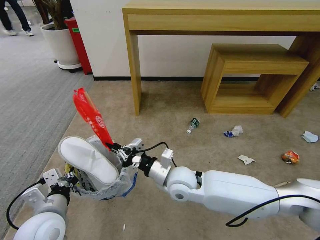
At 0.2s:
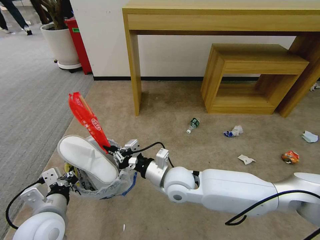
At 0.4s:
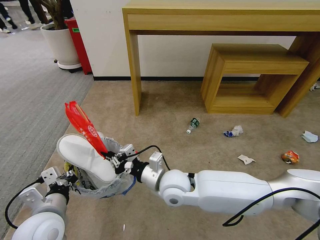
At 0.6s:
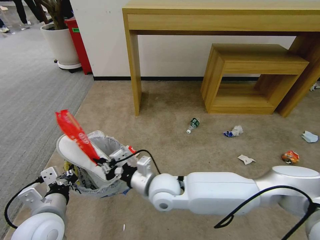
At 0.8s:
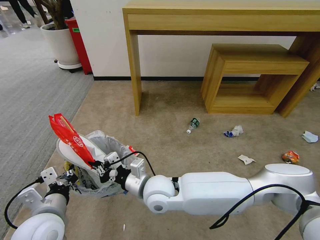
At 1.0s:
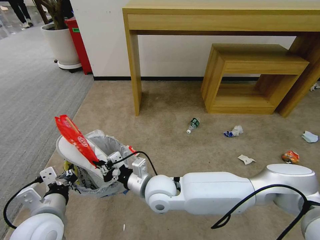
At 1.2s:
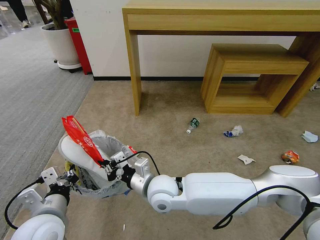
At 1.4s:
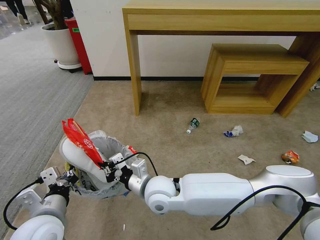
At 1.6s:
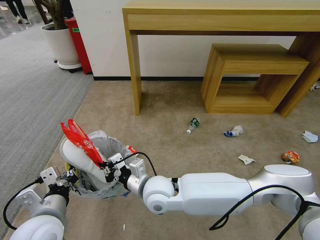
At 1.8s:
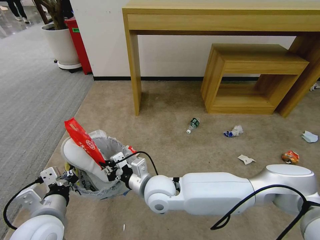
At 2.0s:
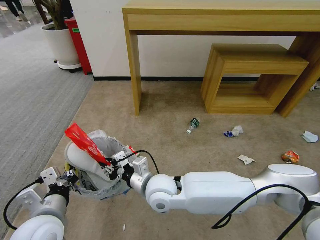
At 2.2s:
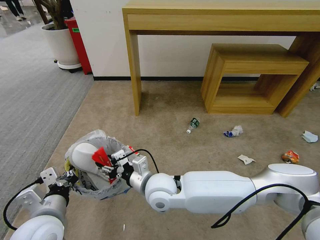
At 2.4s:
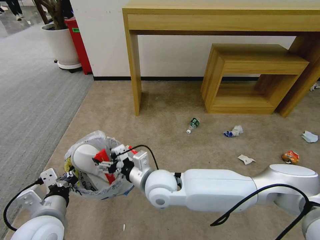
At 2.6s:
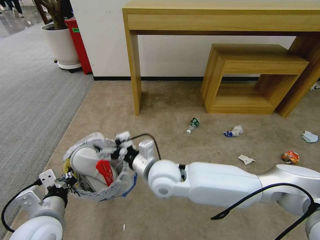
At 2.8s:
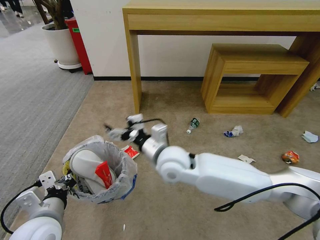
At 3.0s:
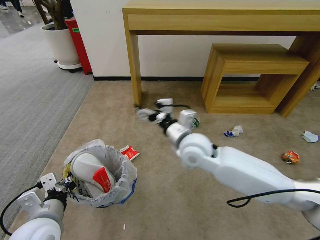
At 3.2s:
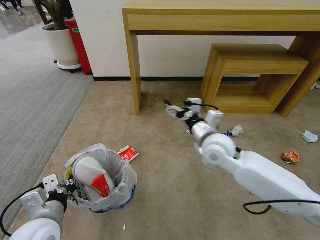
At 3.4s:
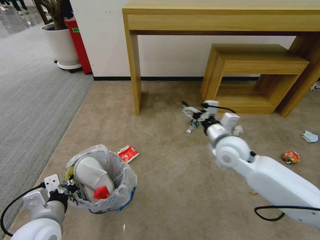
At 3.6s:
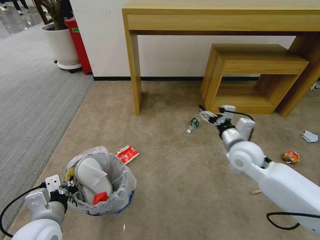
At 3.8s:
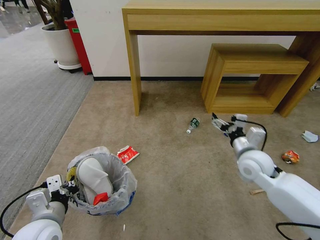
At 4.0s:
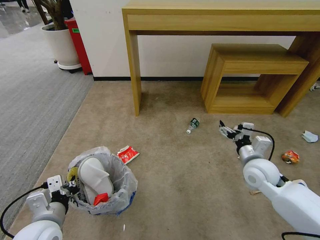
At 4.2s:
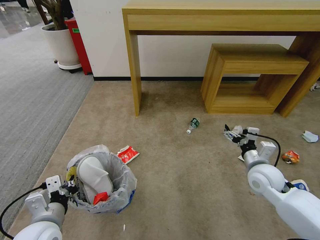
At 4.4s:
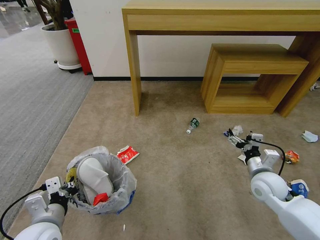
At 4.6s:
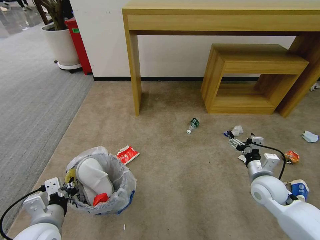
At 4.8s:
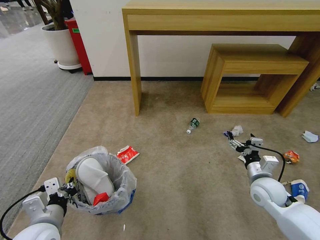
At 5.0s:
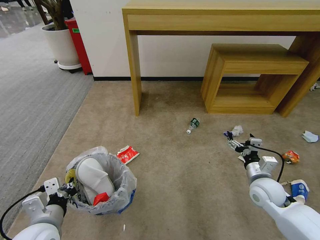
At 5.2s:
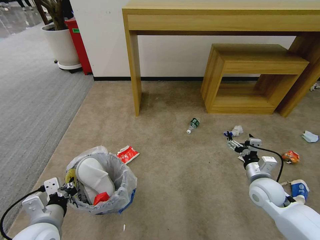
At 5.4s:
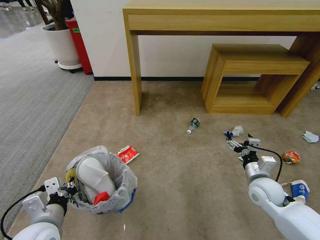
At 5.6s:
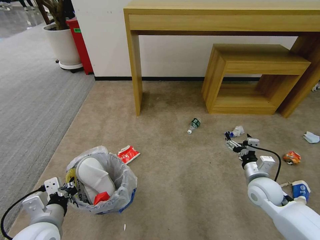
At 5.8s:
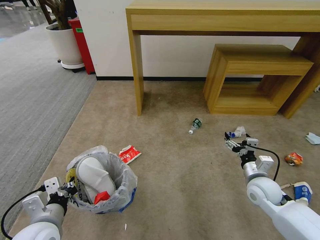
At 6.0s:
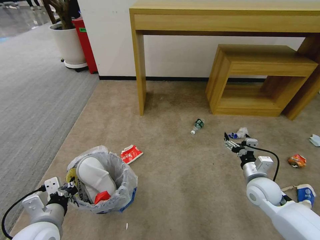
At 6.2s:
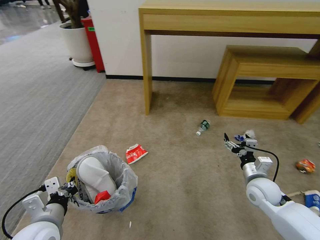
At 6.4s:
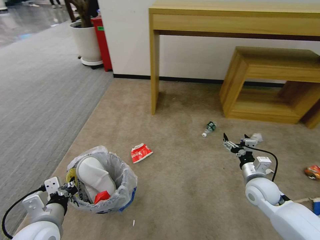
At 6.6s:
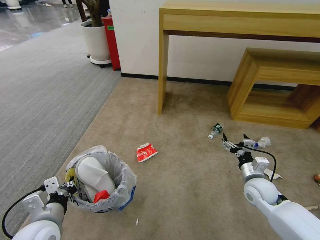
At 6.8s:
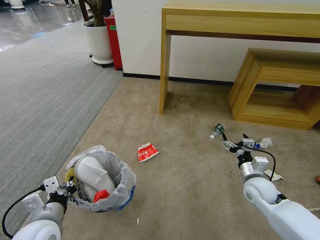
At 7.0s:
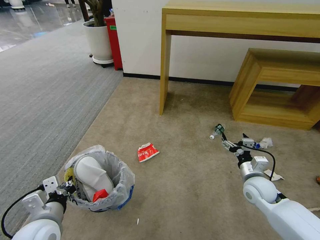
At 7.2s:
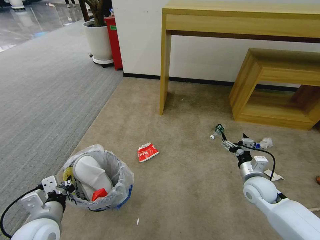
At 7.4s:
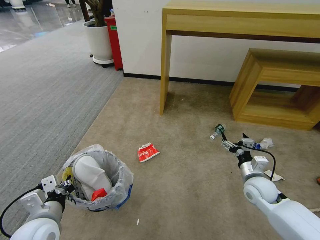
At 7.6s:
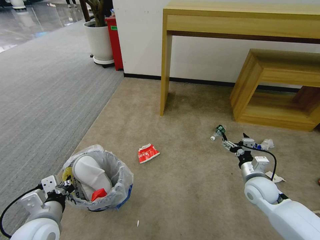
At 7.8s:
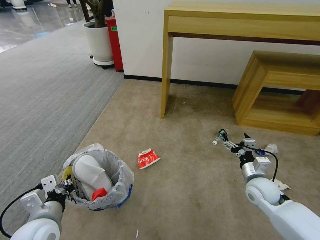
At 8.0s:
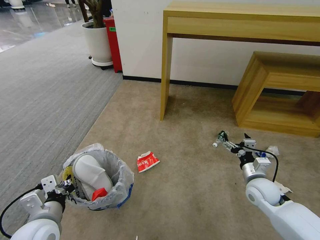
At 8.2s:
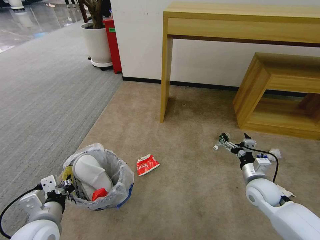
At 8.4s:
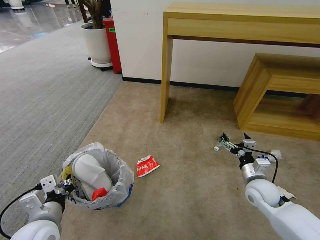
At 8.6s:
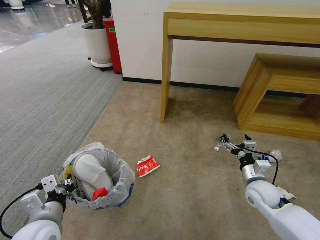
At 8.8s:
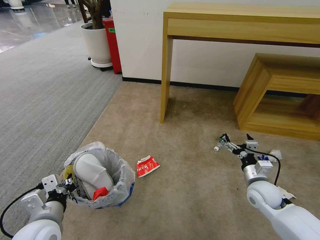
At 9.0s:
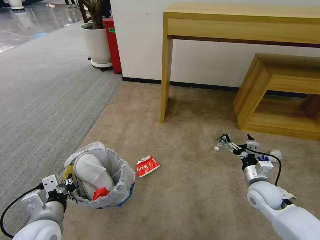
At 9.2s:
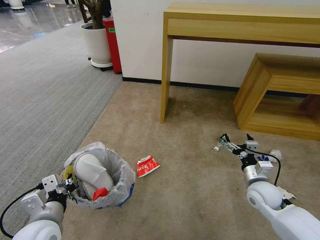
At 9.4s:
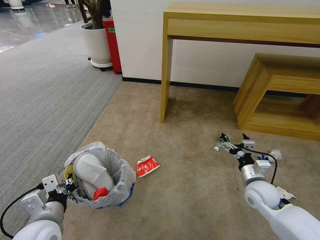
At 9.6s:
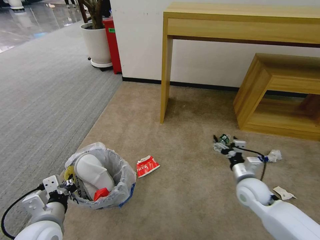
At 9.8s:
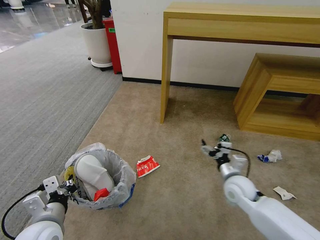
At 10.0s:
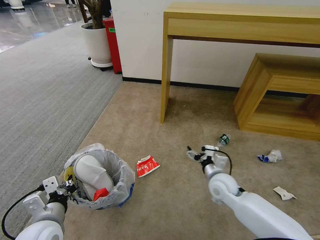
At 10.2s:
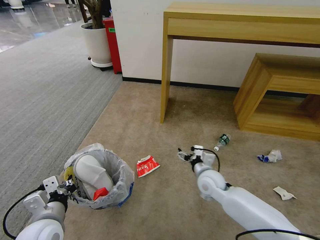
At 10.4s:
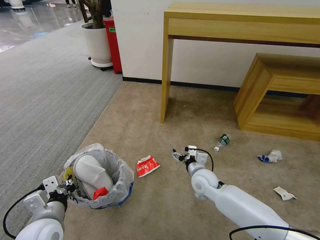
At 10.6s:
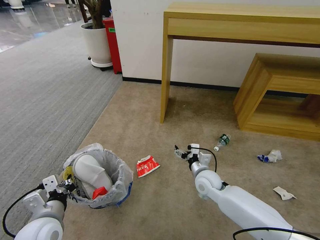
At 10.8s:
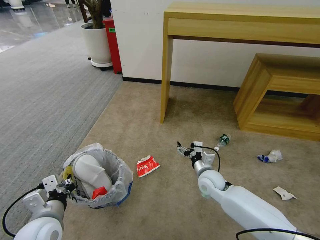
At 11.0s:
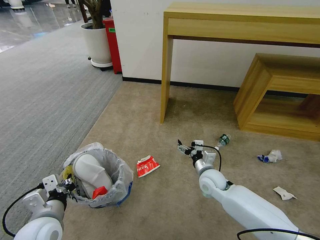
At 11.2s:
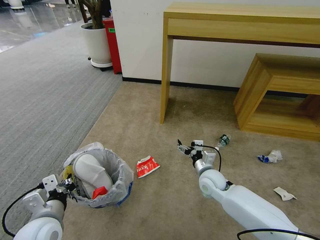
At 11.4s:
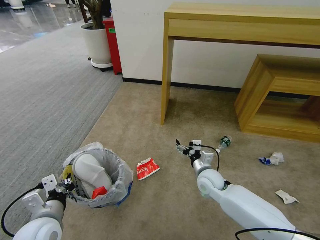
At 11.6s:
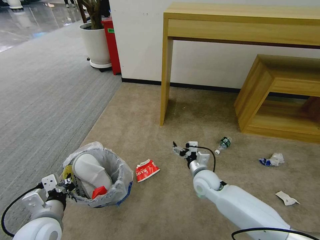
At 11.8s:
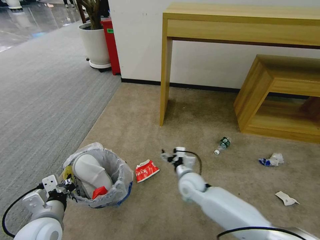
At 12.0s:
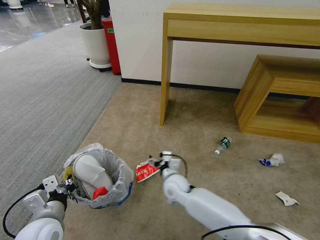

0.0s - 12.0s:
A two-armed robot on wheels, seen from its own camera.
Task of the whole recording: Pick up the trash bin and place the garbage on the floor into it.
0.0s - 1.6s: The right gripper shifts roughly 5 cm to the left.
1.6s - 3.0s: The right gripper heads to the right, upward and forward, covering approximately 15 cm, and opens its fingers.
3.0s - 4.4s: The right gripper shifts some 30 cm to the right and downward.
4.4s - 6.0s: The grippers stay close to where they were, moving slightly.
7.6s - 9.0s: There are only small adjustments of the grippers.
9.0s - 10.4s: The right gripper shifts approximately 20 cm to the left.
10.4s - 12.0s: The right gripper shifts roughly 10 cm to the left.

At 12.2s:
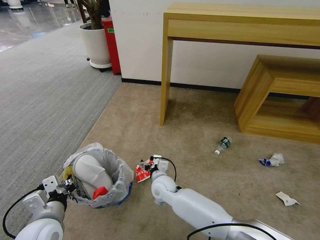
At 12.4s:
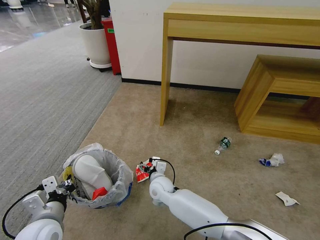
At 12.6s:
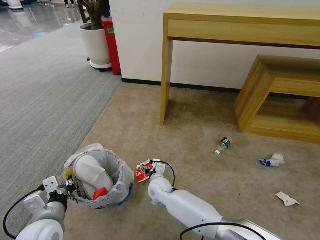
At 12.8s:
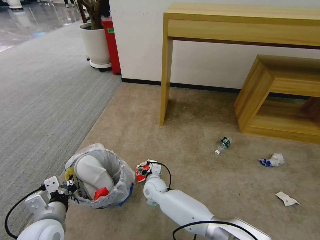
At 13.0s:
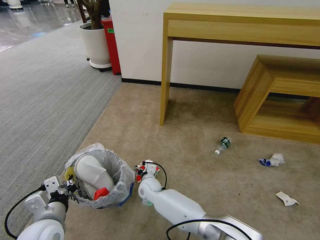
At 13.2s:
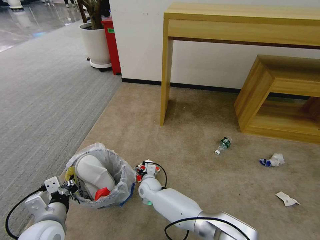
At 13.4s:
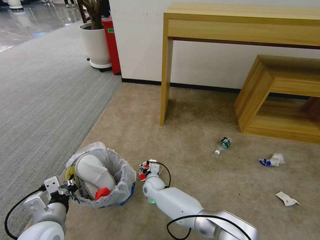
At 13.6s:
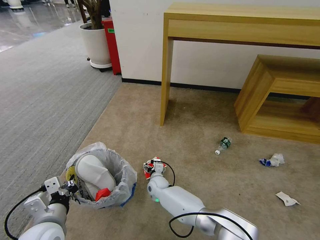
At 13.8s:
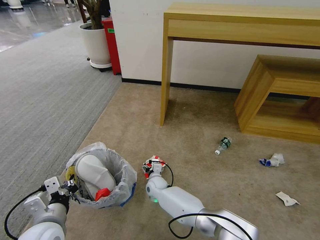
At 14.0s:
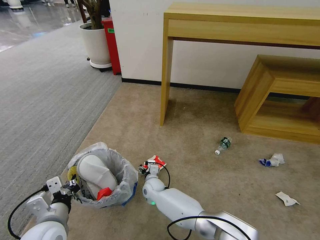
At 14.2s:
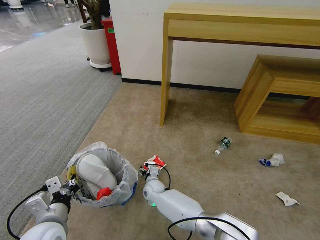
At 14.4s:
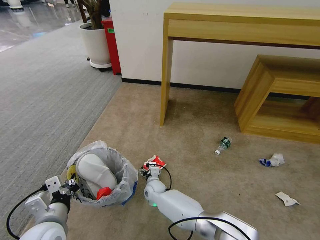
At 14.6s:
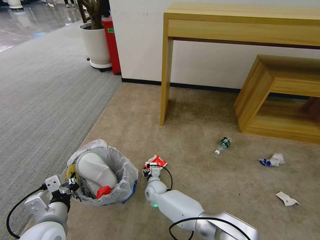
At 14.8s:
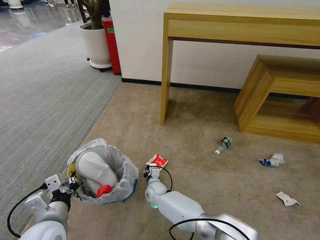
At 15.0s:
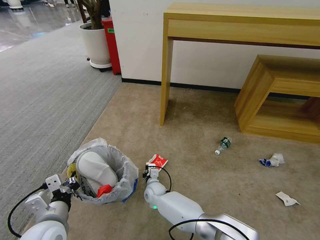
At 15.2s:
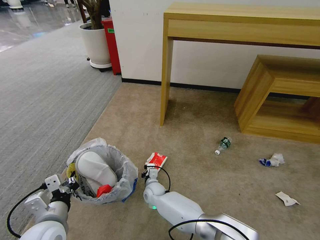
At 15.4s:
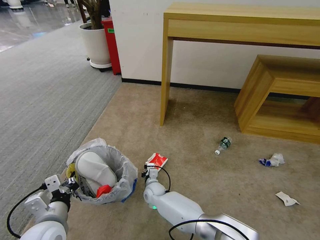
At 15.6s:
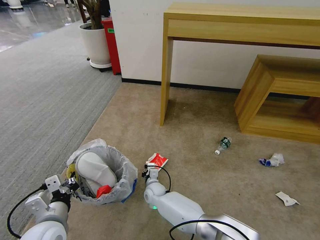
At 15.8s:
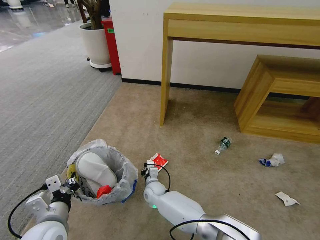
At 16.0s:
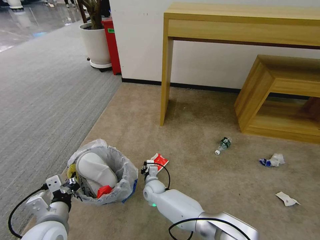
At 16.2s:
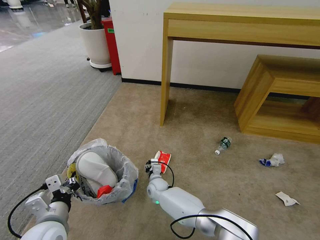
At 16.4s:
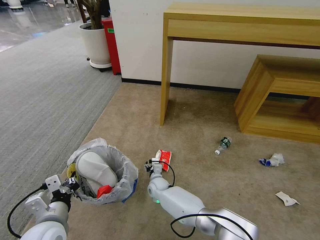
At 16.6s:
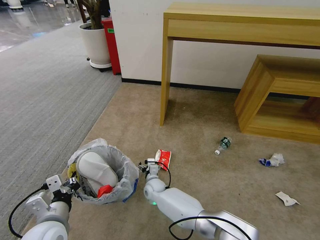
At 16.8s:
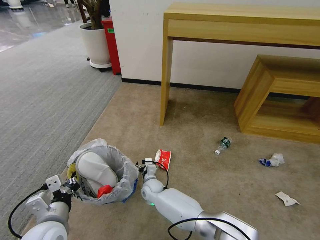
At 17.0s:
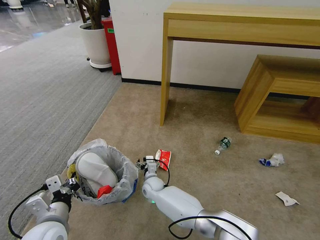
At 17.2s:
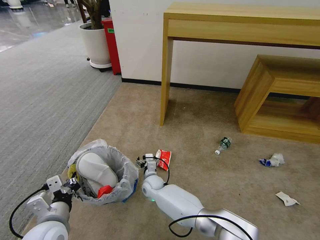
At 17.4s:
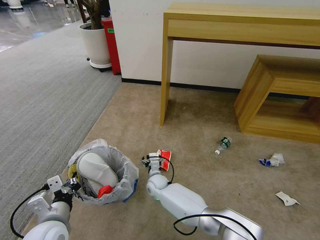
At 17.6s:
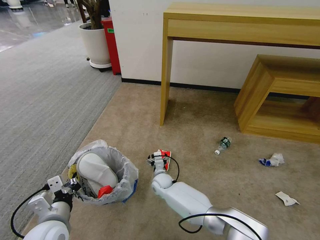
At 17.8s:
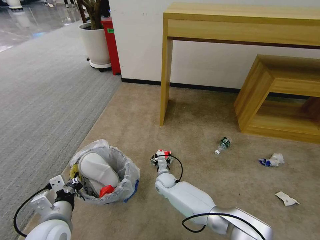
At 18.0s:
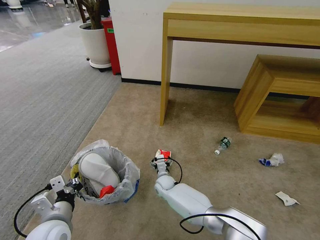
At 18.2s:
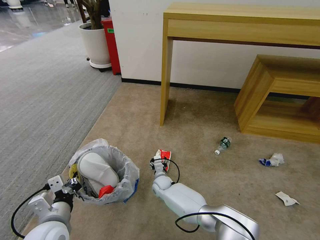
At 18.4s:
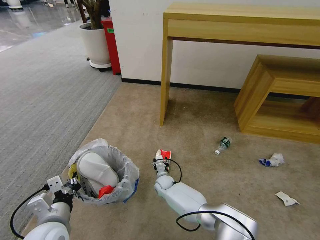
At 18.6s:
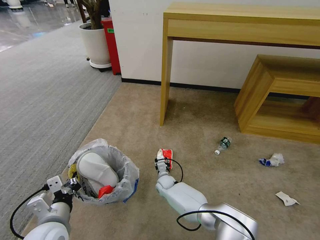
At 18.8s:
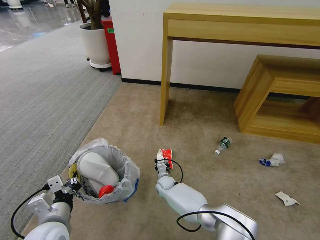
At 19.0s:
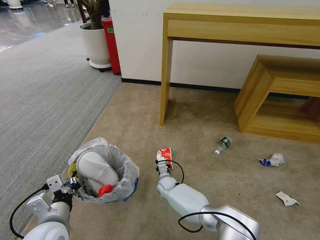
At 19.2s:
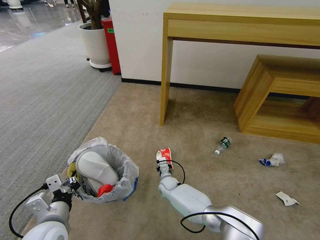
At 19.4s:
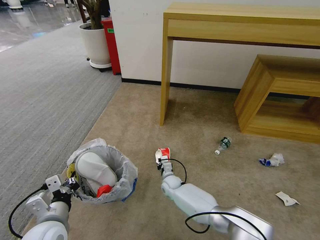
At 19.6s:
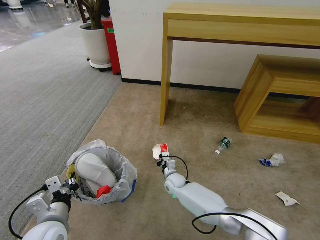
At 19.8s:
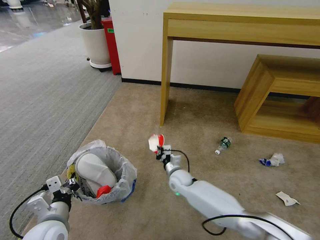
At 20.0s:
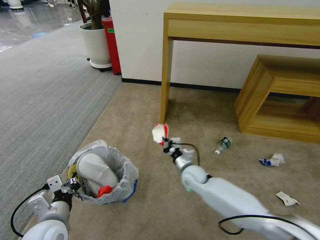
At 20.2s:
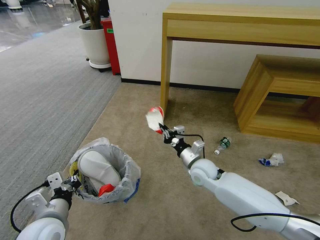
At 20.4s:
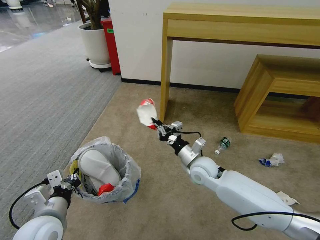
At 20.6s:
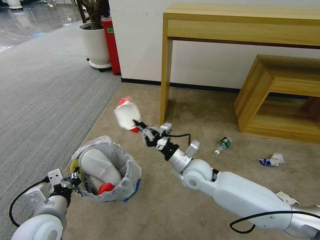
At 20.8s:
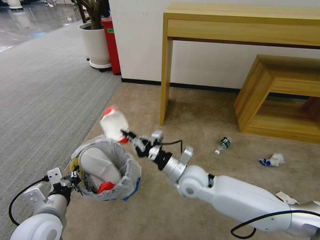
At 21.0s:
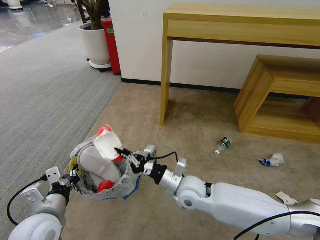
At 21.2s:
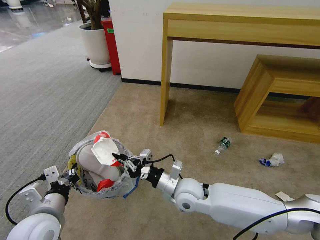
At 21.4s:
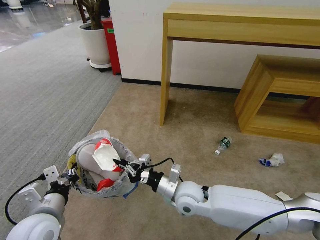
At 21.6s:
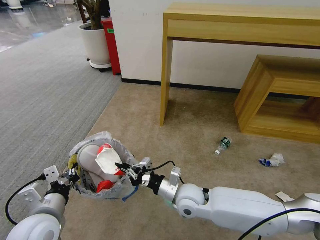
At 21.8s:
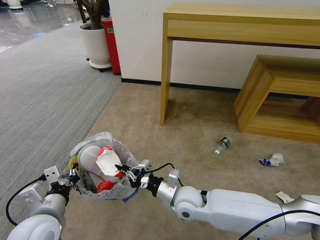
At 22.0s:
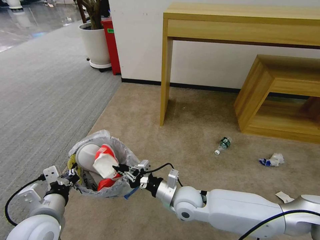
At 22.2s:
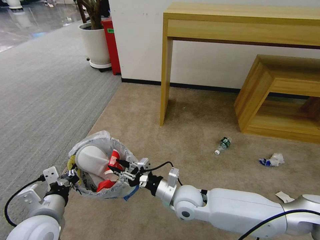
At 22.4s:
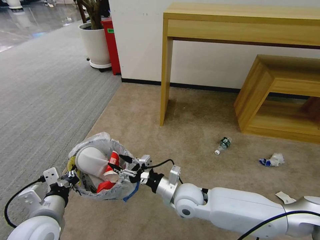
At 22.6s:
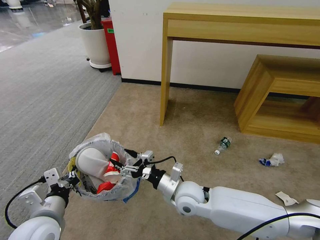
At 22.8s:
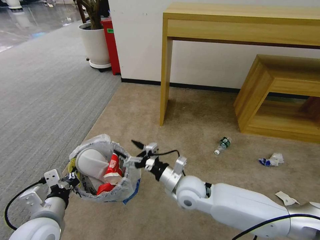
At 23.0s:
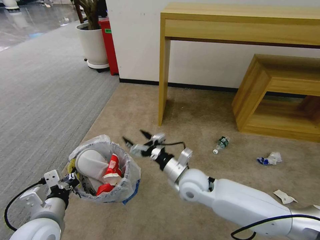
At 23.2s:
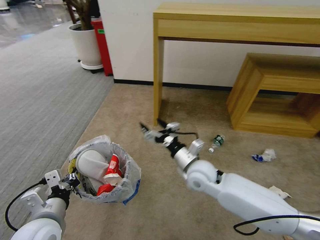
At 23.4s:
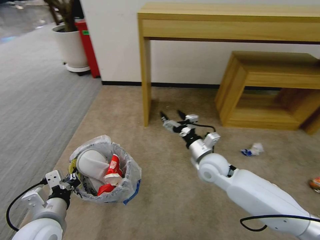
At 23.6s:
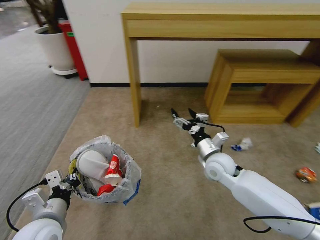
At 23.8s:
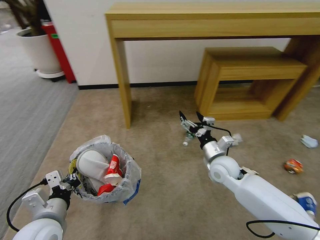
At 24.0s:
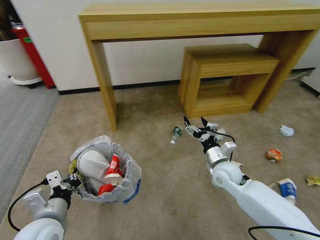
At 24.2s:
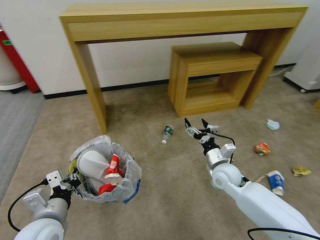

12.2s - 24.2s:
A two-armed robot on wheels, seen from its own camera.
Task of the whole recording: Pick up the trash bin and place the garbage on the floor into it.
12.2s - 13.8s: The right gripper shifts roughly 10 cm downward.
13.8s - 15.2s: The right gripper closes its fingers.
15.2s - 16.6s: The right gripper opens.
16.6s - 18.2s: The grippers make only small movements.
18.2s - 19.8s: The right gripper heads upward and to the right, covering some 10 cm, and closes its fingers.
19.8s - 21.2s: The right gripper travels upward and backward by roughly 20 cm.
21.2s - 22.6s: The right gripper opens its fingers.
22.6s - 24.2s: The right gripper moves to the right and forward, some 15 cm.
